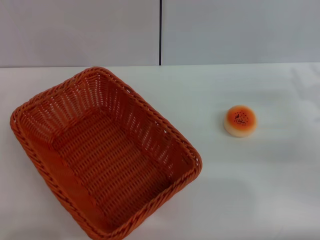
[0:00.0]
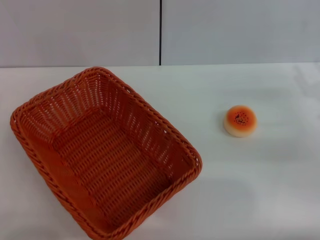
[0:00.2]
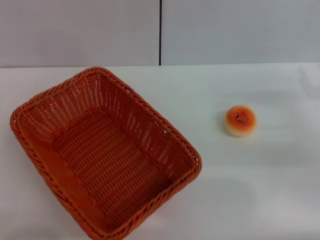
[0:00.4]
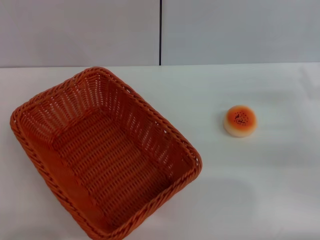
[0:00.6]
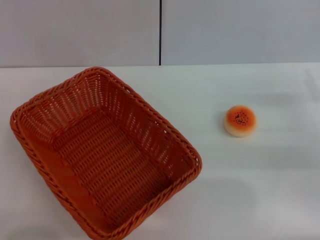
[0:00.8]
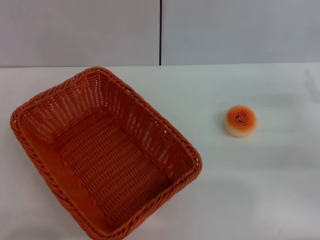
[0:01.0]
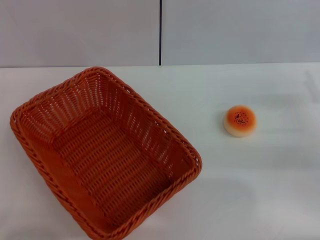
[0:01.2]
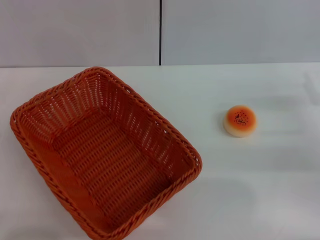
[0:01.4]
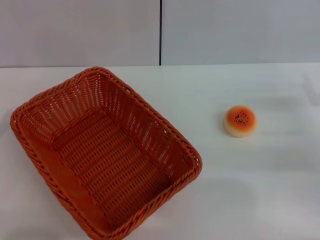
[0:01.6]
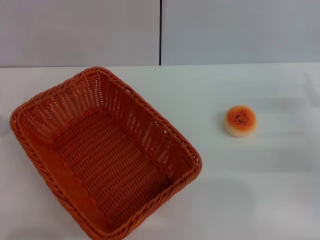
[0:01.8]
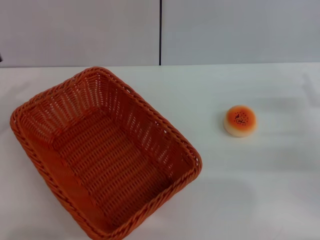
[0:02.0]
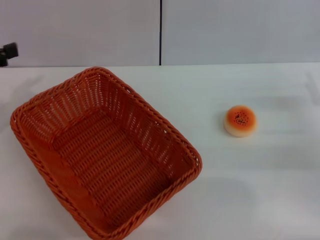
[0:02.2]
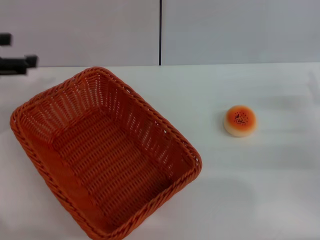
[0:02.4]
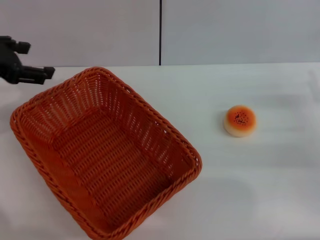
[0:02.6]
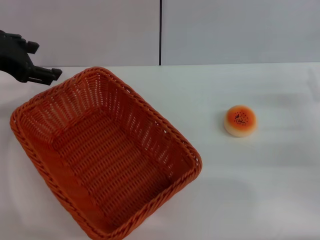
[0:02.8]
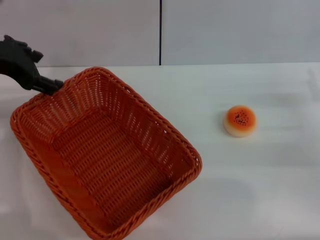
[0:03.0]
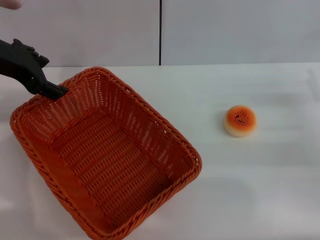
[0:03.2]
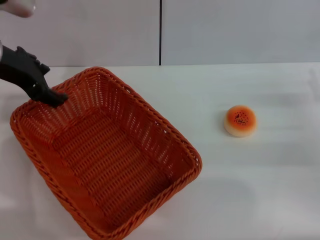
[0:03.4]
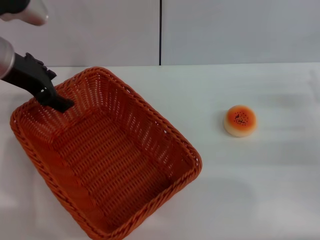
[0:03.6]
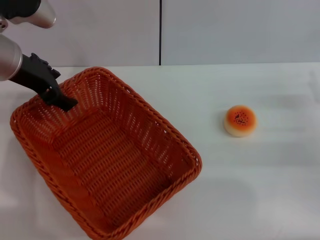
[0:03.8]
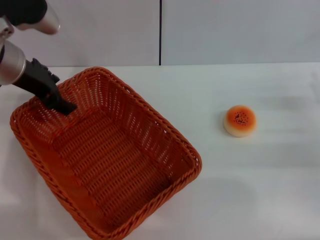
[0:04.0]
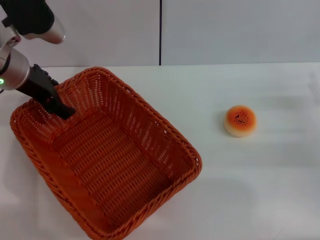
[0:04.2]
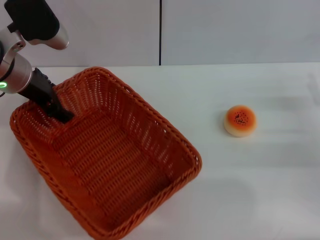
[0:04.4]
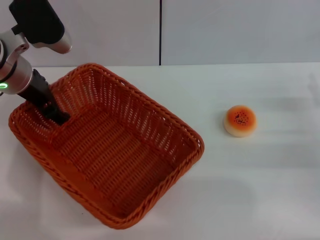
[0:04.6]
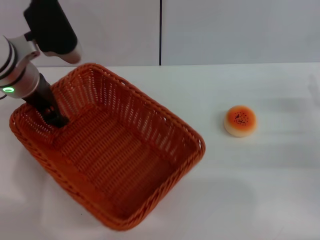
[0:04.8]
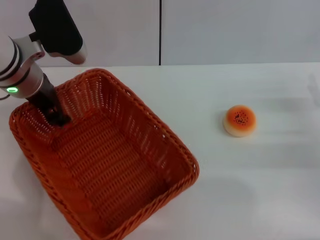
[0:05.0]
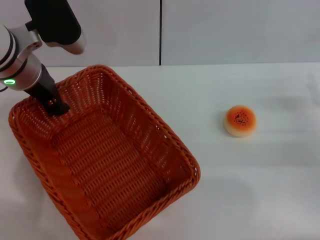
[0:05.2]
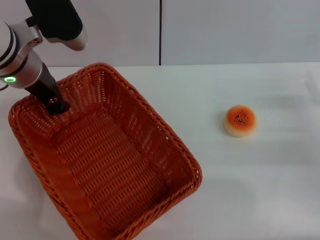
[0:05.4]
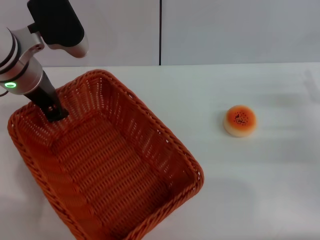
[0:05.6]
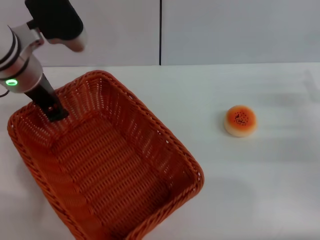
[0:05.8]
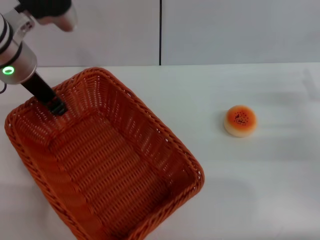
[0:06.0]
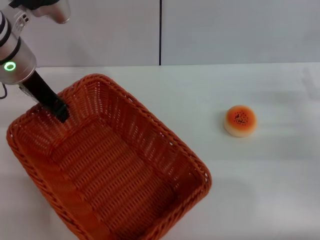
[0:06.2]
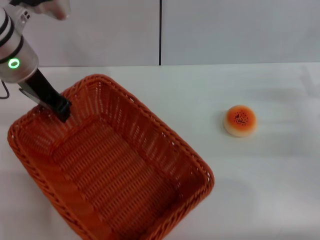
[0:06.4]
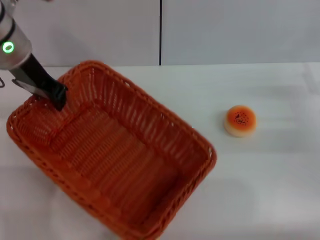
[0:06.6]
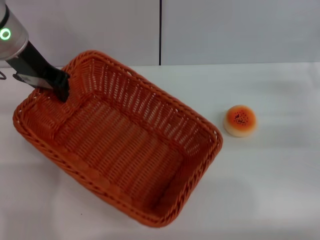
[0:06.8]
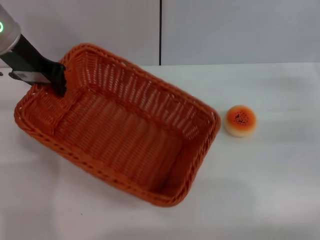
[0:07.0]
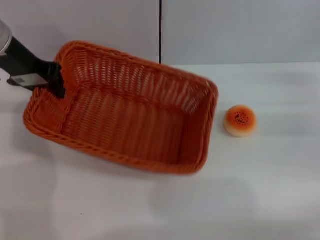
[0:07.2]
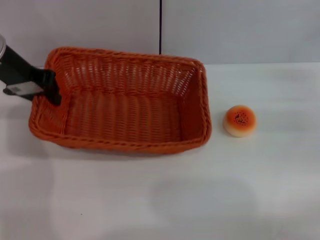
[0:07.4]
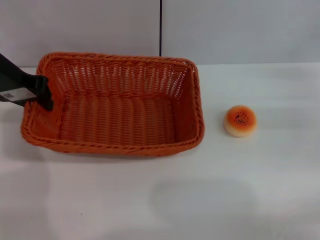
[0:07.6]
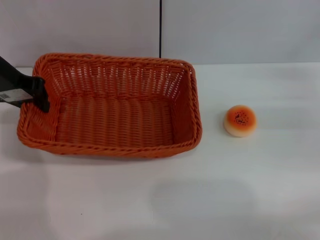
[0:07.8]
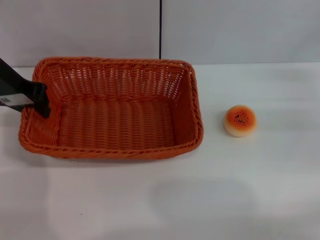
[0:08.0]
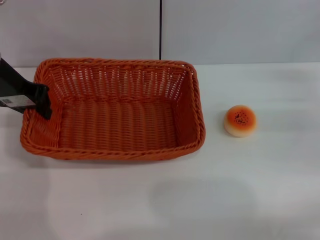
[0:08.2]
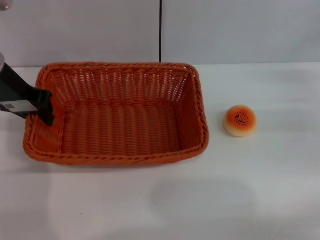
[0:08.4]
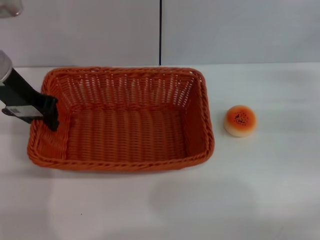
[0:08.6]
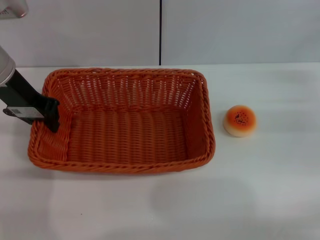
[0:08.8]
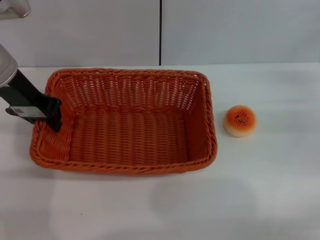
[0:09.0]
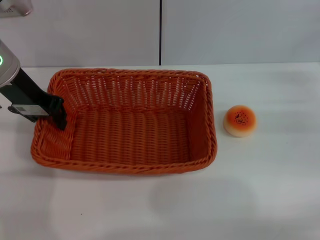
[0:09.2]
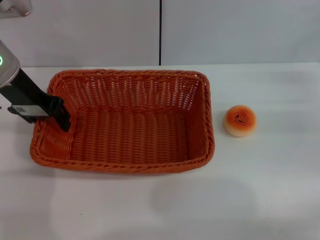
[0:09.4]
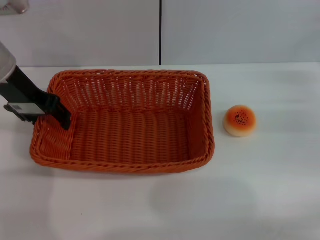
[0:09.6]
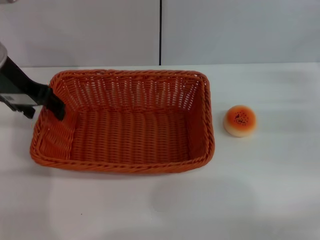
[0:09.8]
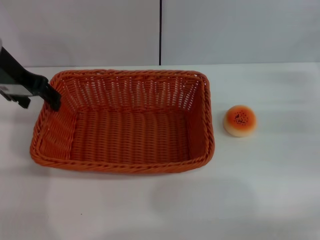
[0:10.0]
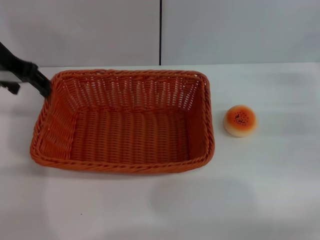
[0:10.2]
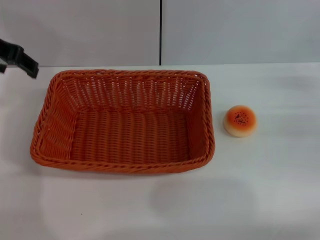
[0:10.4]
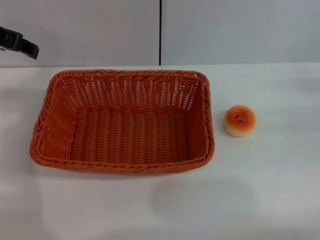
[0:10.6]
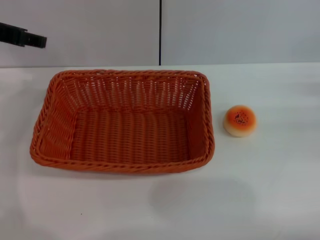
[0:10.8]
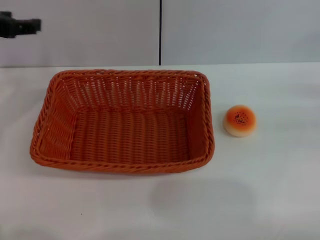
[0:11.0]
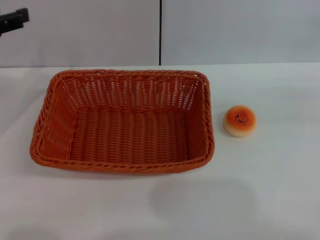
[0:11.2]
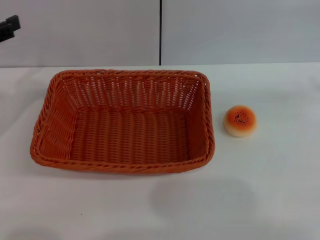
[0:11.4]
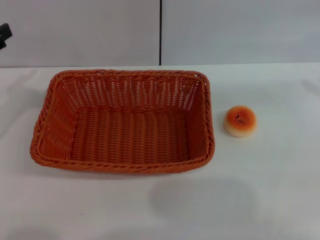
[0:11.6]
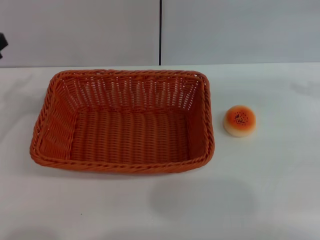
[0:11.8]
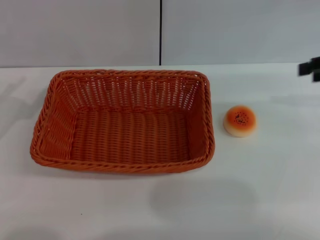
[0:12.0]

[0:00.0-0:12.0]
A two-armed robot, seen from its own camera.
Step, 0:00.0 to 0:09.8: Move the basket to the center of view with the left gripper.
0:01.6 to 0:03.0: The left gripper heads forward, upward and to the right, covering about 25 cm.
0:03.0 to 0:04.4: The left gripper heads downward, covering approximately 5 cm.
0:04.4 to 0:06.0: The left gripper closes.
0:06.0 to 0:07.6: The left gripper moves to the left, some 5 cm, while the right gripper is displaced forward by some 5 cm.
0:07.6 to 0:09.0: The grippers stay close to where they were, moving slightly.
0:09.0 to 0:10.4: The left gripper heads upward, covering approximately 5 cm, and opens.
0:10.4 to 0:12.0: The right gripper heads upward, covering about 15 cm. Meanwhile the left gripper moves downward, backward and to the left, roughly 20 cm.

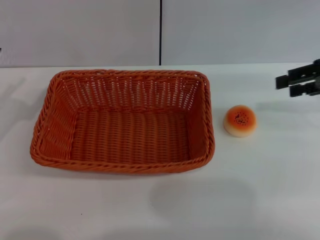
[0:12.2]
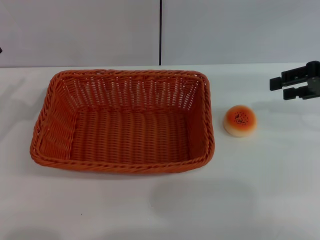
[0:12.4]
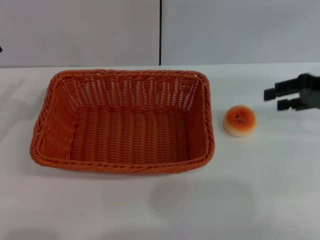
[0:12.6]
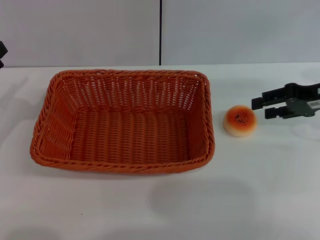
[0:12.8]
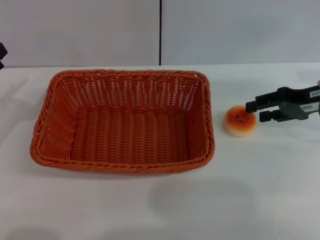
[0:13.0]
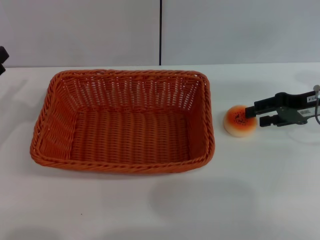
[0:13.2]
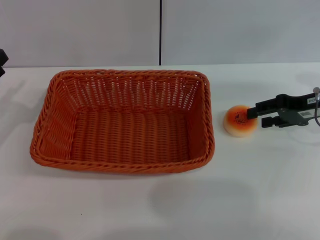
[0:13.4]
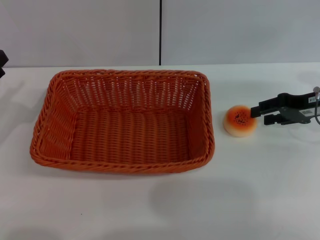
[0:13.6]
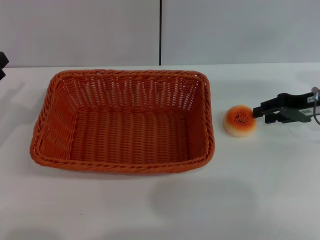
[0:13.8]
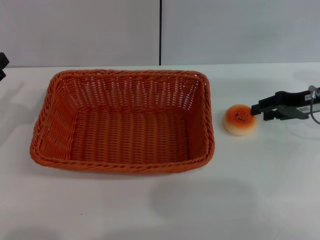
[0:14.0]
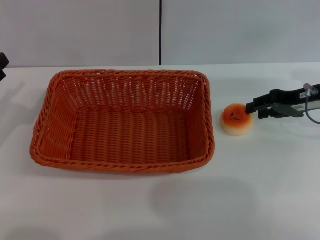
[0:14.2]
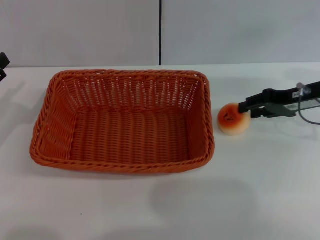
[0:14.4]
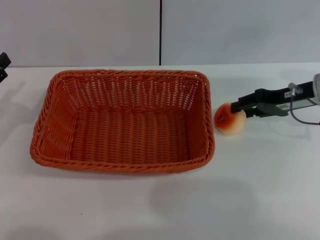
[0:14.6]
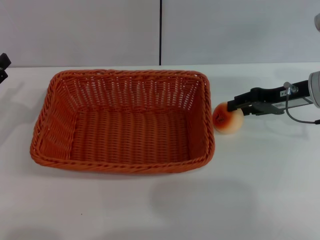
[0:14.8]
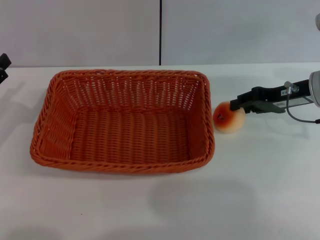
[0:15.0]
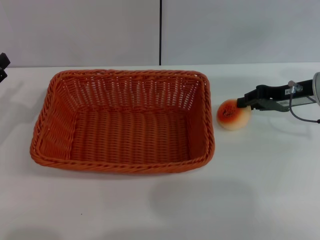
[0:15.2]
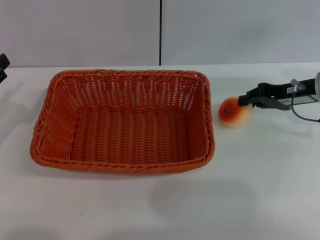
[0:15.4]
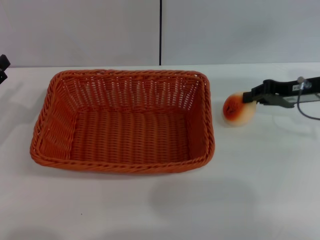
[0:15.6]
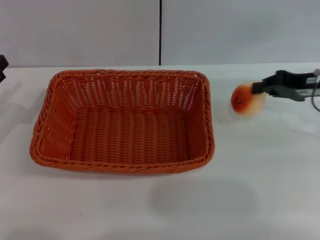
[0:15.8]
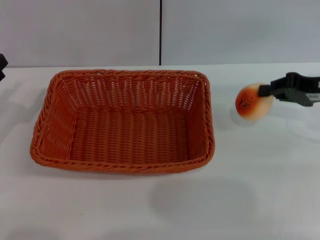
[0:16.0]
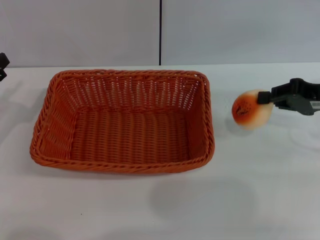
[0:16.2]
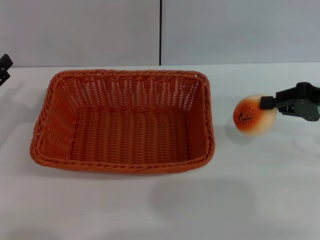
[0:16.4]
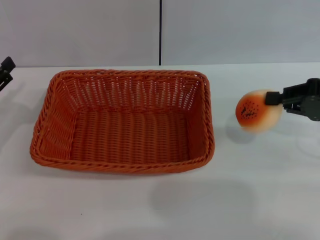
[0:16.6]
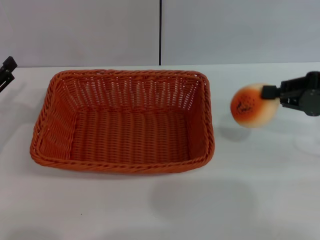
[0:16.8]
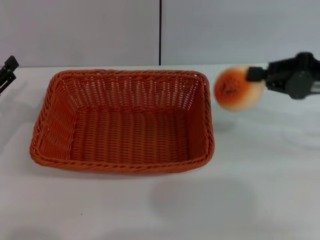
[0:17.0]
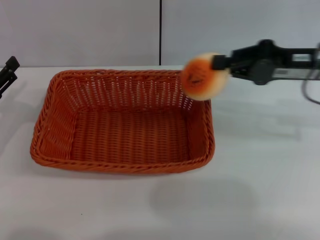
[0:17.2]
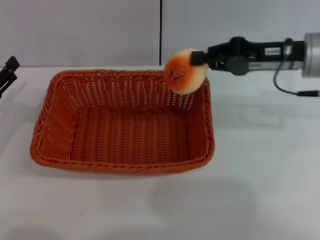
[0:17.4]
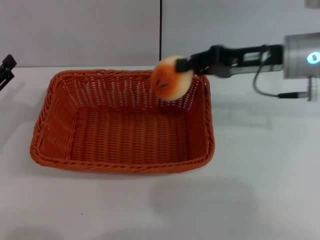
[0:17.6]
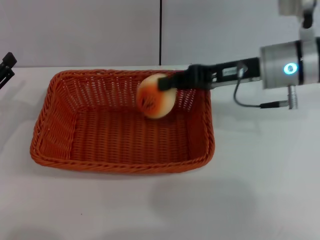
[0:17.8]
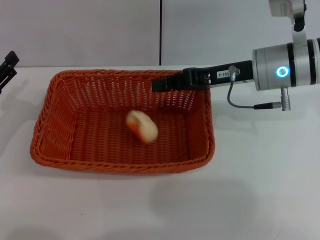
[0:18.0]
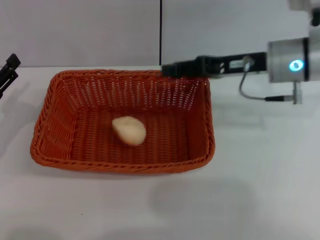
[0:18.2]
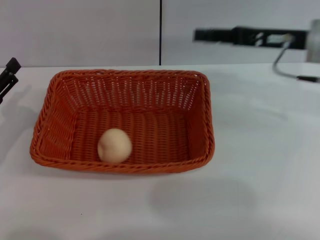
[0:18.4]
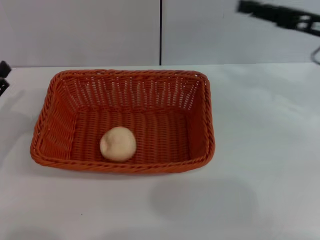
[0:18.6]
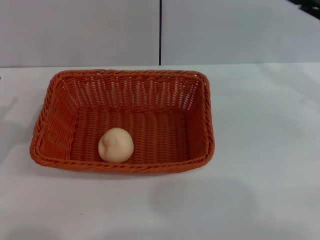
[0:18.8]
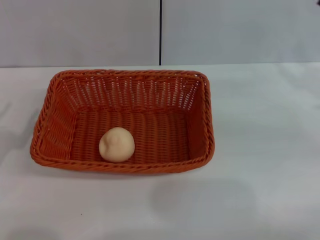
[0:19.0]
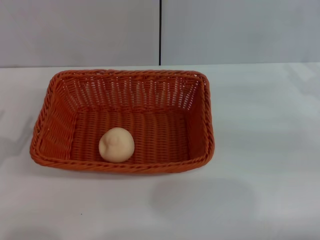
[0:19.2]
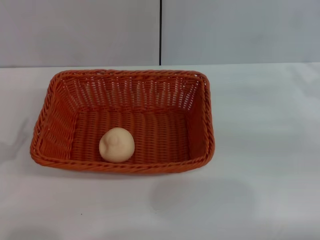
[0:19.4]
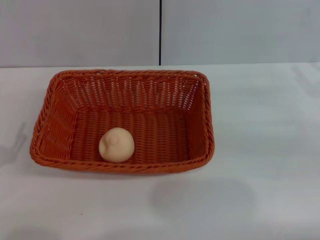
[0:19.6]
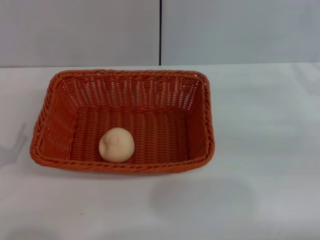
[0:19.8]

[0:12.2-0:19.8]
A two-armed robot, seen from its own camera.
Step, 0:12.2 to 0:16.4: Pick up the egg yolk pastry with the right gripper.
Step, 0:16.6 to 0:18.4: Place the egg yolk pastry into the basket with the right gripper.
0:12.2 to 0:13.8: The right gripper travels downward by some 10 cm.
0:13.8 to 0:15.2: There are only small adjustments of the grippers.
0:15.2 to 0:16.8: The right gripper travels backward and upward by approximately 10 cm, and closes its fingers.
0:16.8 to 0:18.2: The right gripper heads to the left and forward, covering roughly 15 cm.
0:18.2 to 0:19.8: The left gripper heads backward, covering some 10 cm. The right gripper travels to the right and backward by roughly 20 cm, and opens.

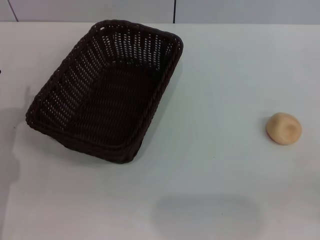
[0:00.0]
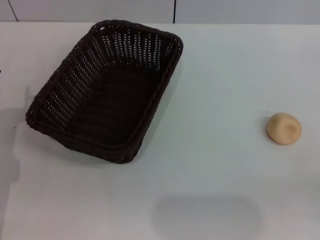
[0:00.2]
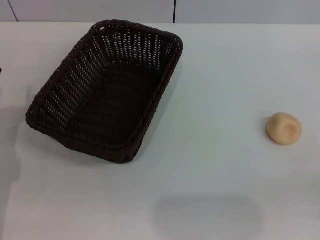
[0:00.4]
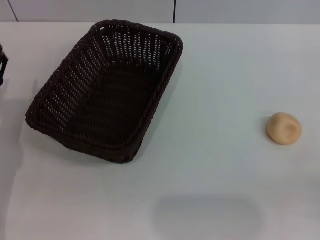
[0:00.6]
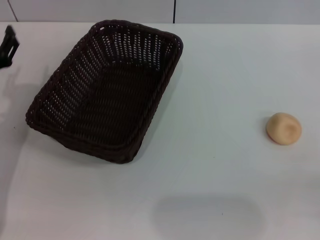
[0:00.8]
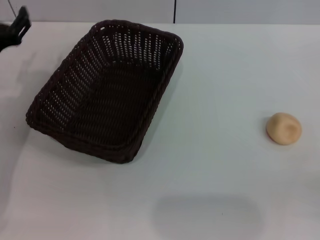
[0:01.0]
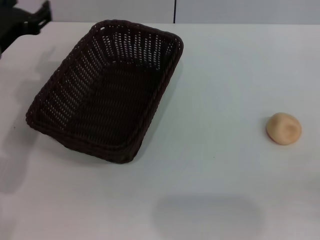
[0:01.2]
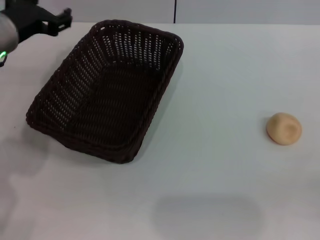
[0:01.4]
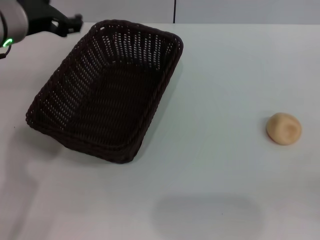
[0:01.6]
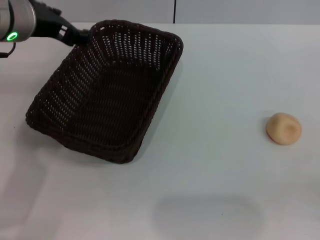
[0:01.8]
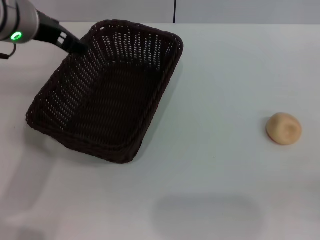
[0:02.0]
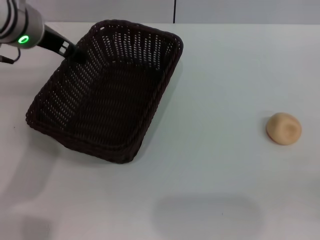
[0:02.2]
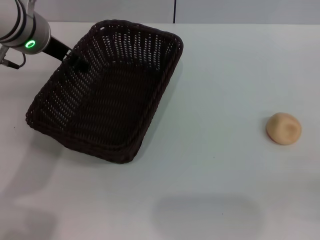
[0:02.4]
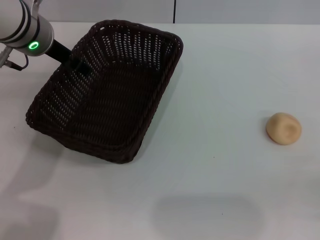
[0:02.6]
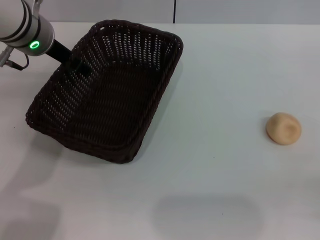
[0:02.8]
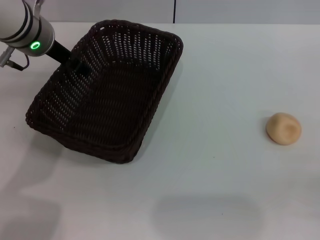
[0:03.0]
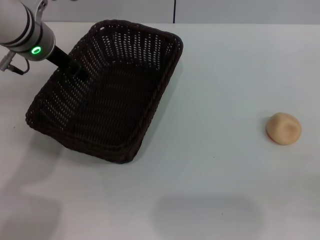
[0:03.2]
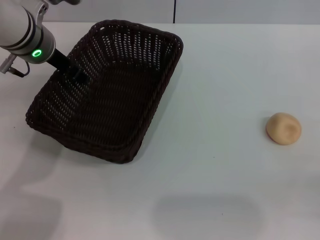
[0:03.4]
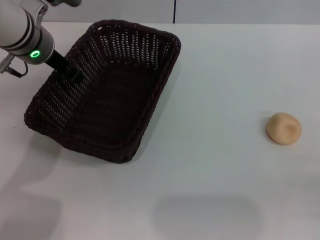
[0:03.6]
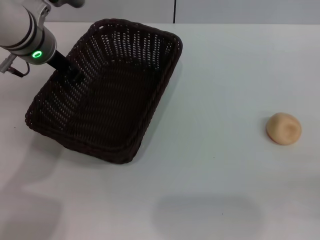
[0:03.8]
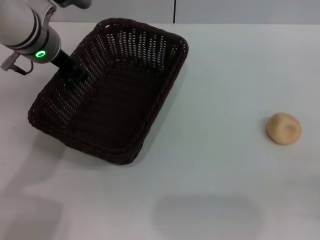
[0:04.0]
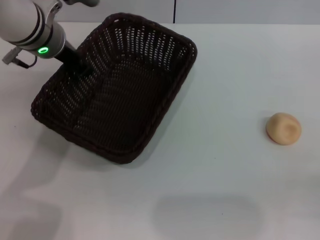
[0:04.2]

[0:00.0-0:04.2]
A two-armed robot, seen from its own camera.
0:00.0 to 0:01.4: The left gripper shifts roughly 20 cm upward, forward and to the right.
0:01.4 to 0:02.8: The left gripper changes place by about 5 cm.
0:02.8 to 0:04.2: The left gripper closes up.
